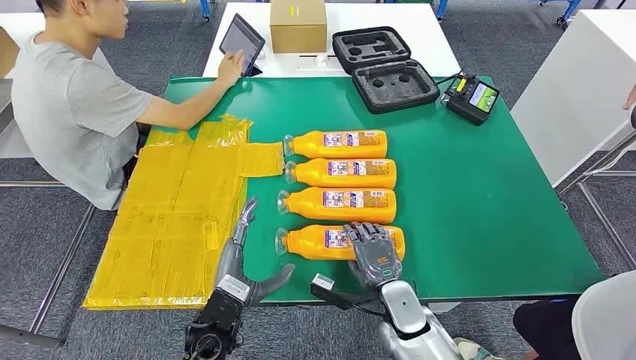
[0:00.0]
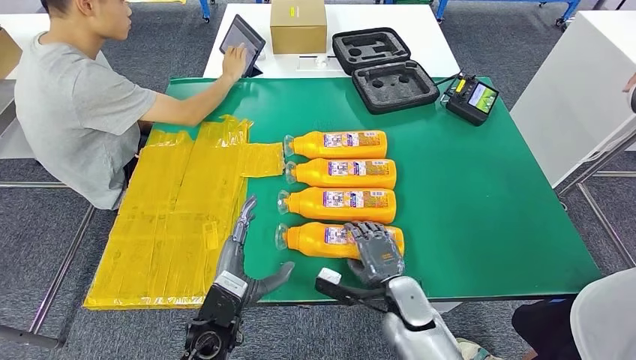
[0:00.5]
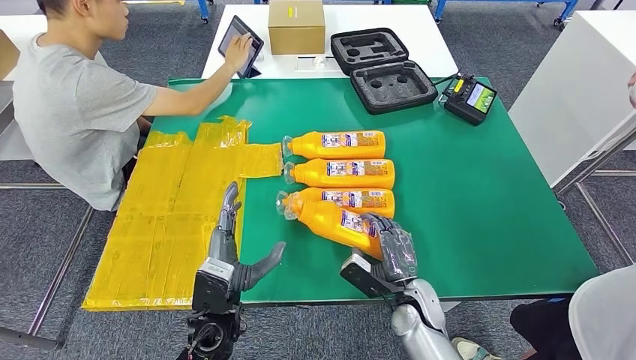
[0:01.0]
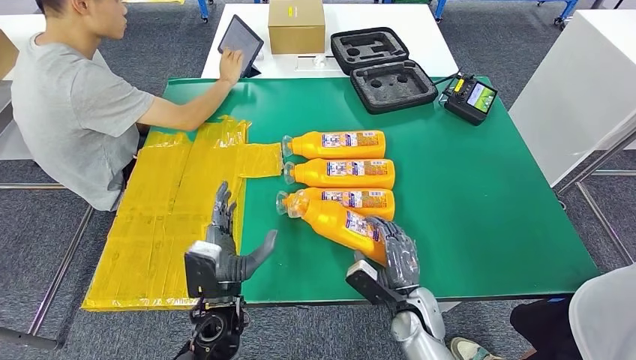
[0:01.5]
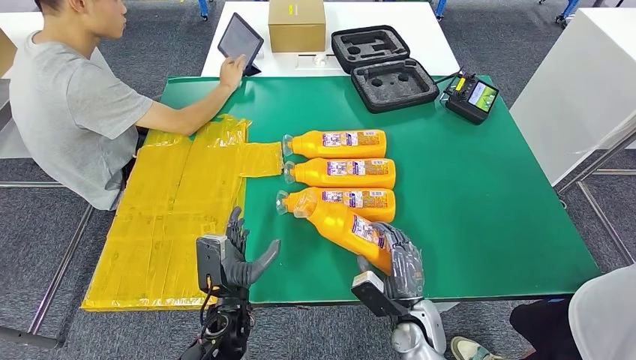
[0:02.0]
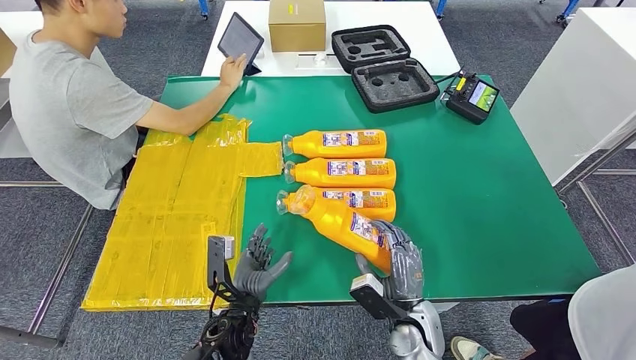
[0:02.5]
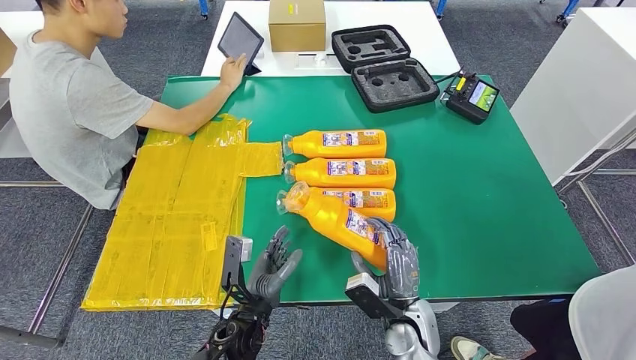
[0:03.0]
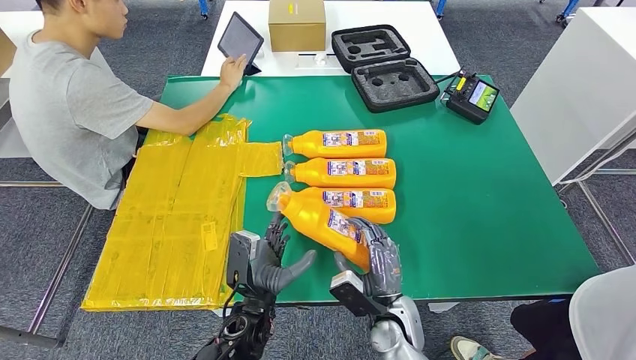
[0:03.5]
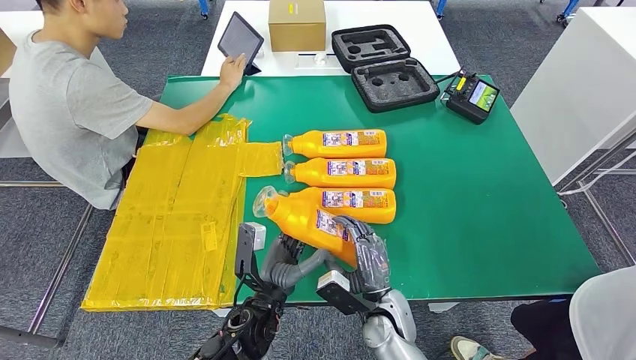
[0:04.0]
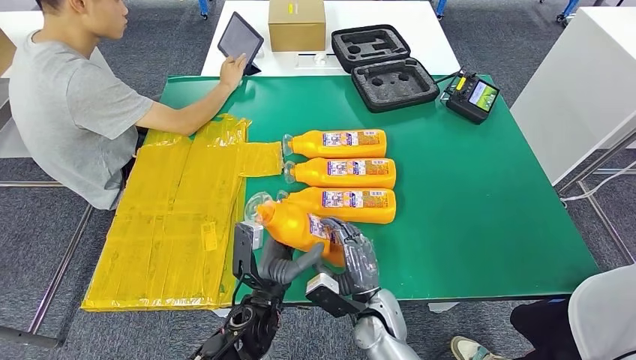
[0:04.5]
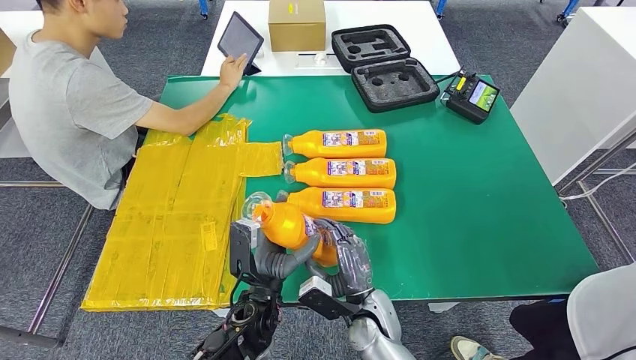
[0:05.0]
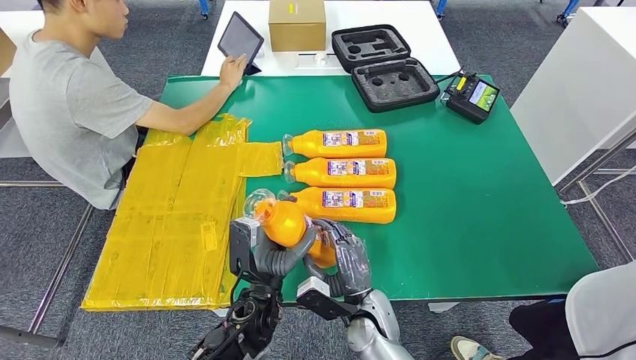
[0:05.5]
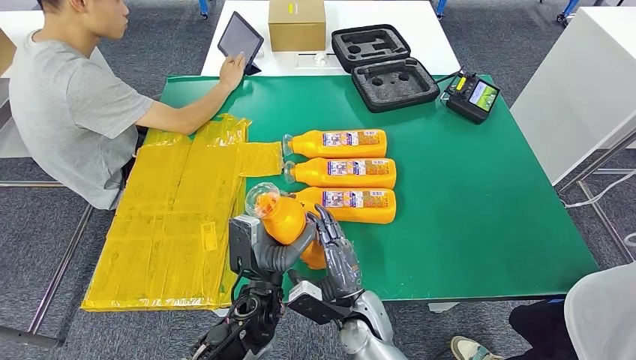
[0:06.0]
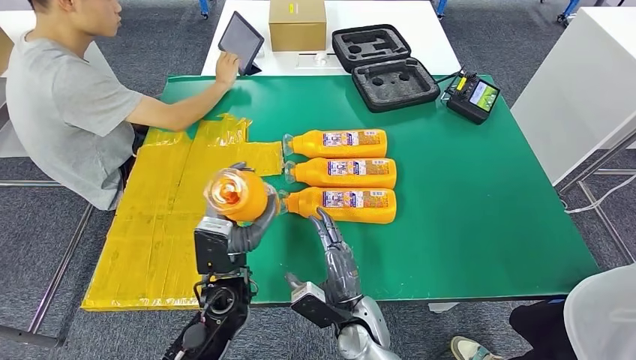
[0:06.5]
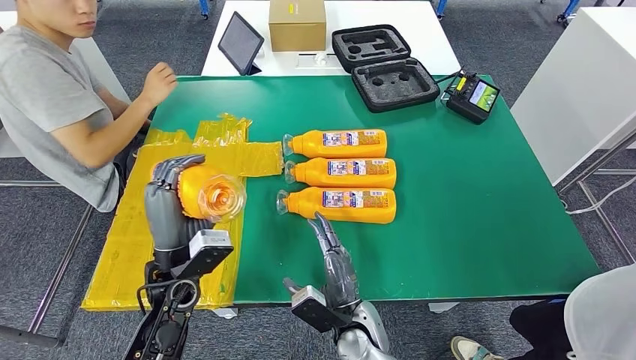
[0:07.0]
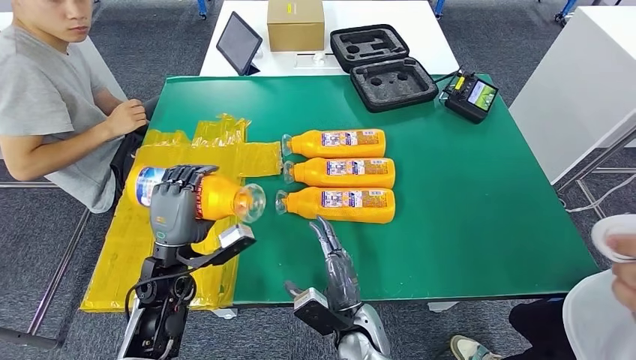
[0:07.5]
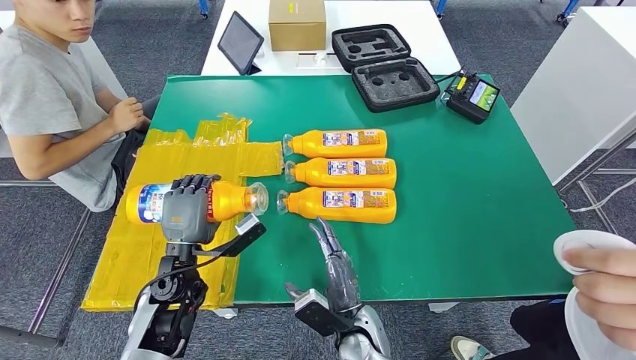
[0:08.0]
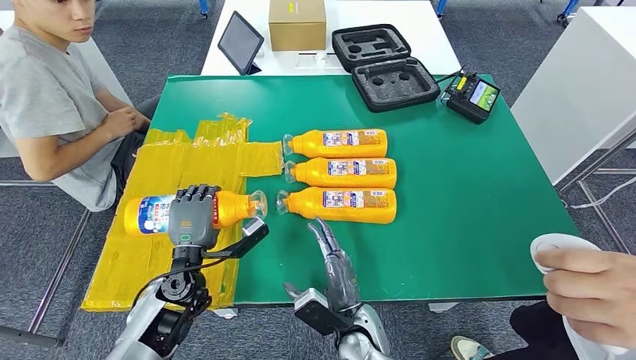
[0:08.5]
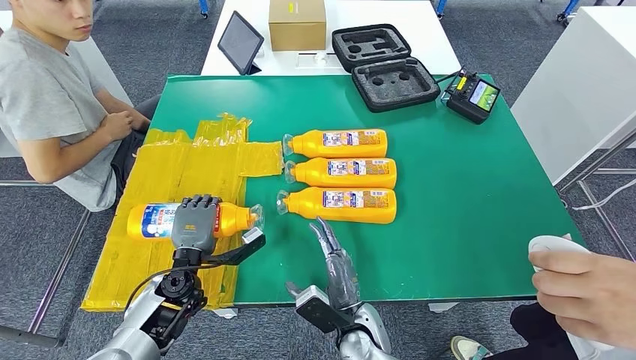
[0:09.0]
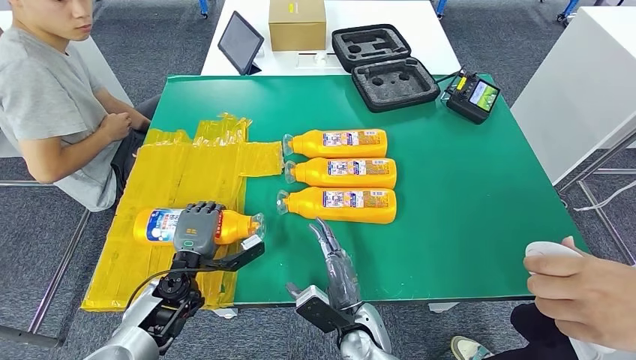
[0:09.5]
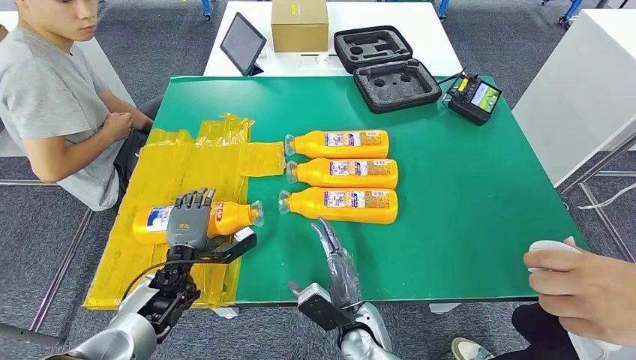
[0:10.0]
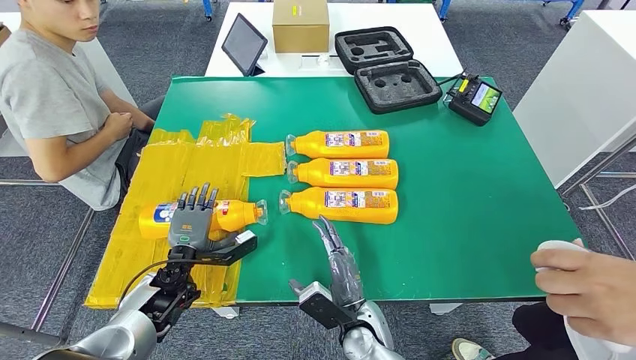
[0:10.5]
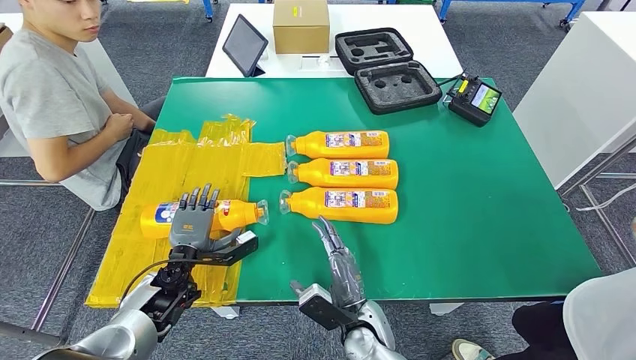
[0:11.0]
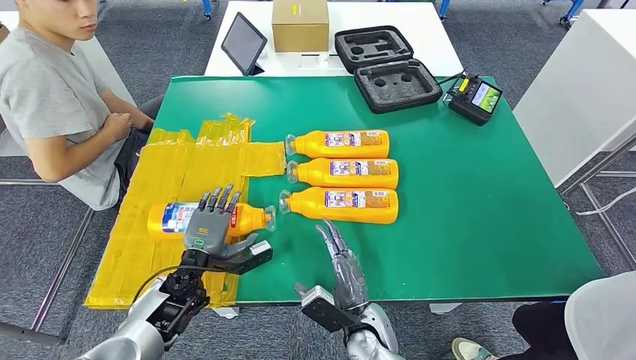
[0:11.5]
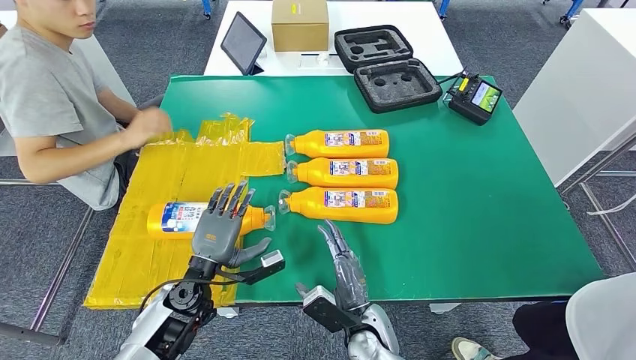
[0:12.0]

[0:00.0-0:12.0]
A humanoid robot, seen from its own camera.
Step, 0:00.0 to 0:04.5: Take the bottle from the table.
Step, 0:05.0 to 0:11.5: Flip the bottle to face forward.
0:02.0 to 0:04.0: The left hand goes approximately 5 cm to the right. Meanwhile the right hand is displaced to the left by roughly 5 cm.
0:04.0 to 0:06.0: The hands move only a little.
0:10.0 to 0:12.0: The left hand changes place by some 5 cm.

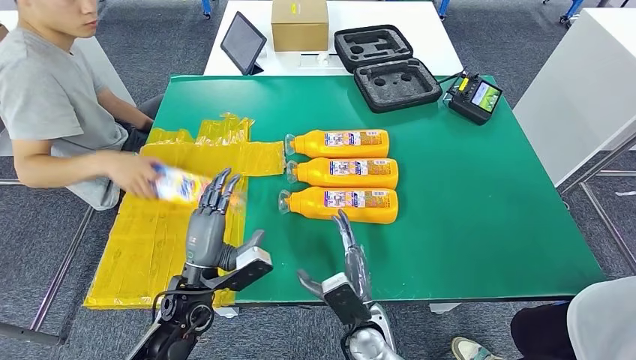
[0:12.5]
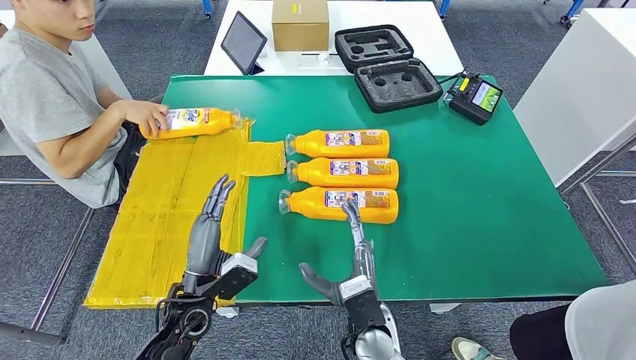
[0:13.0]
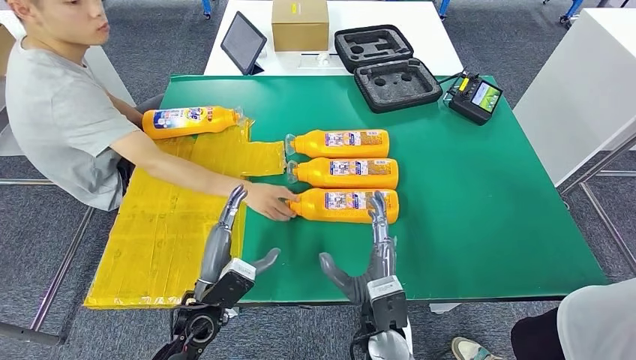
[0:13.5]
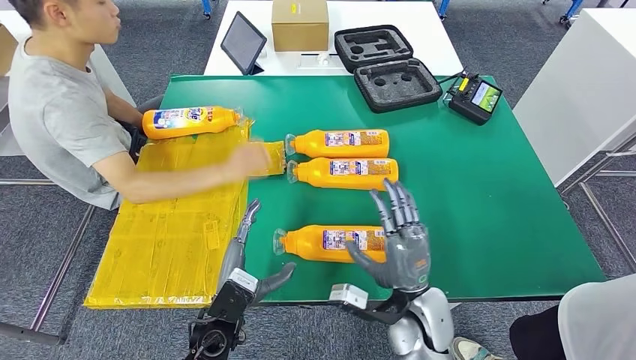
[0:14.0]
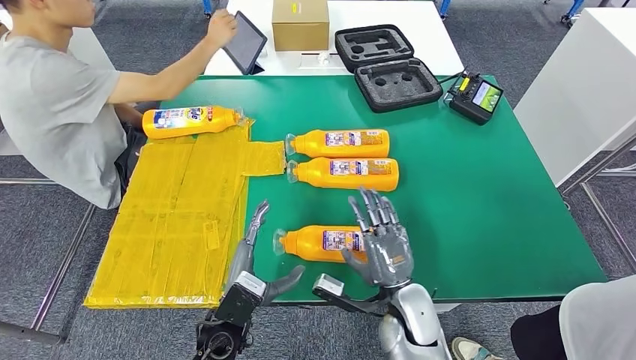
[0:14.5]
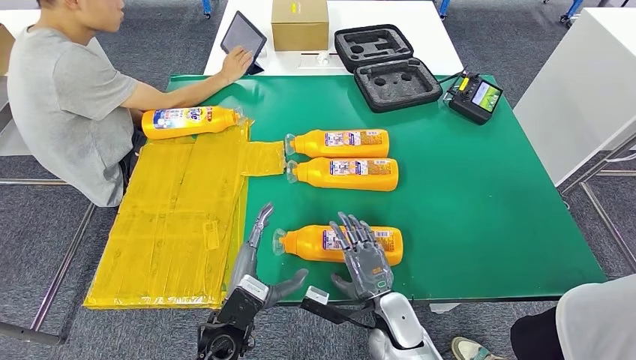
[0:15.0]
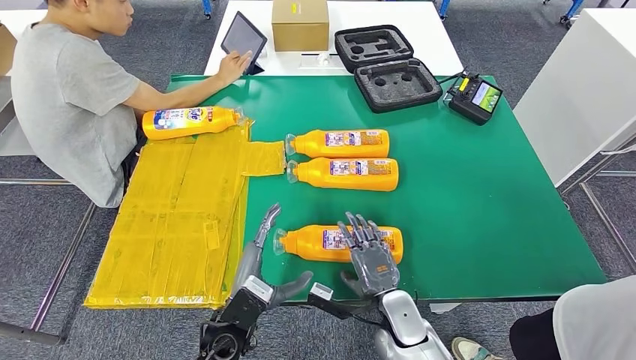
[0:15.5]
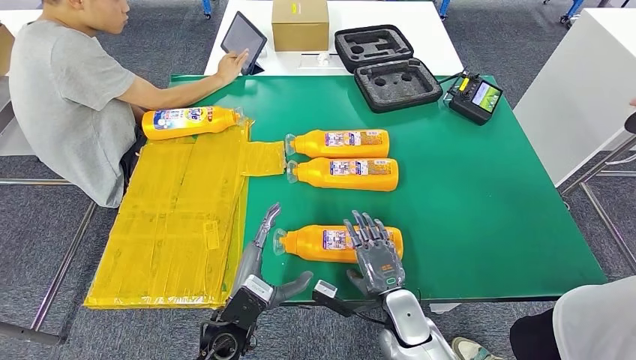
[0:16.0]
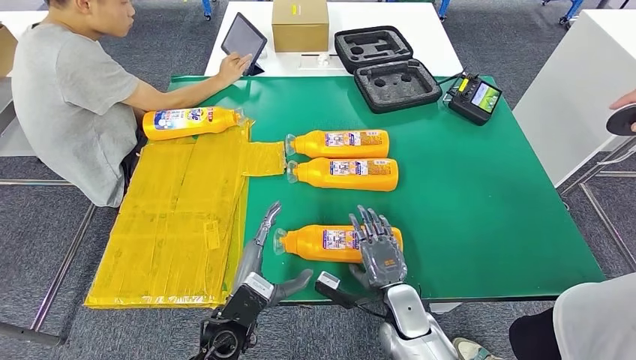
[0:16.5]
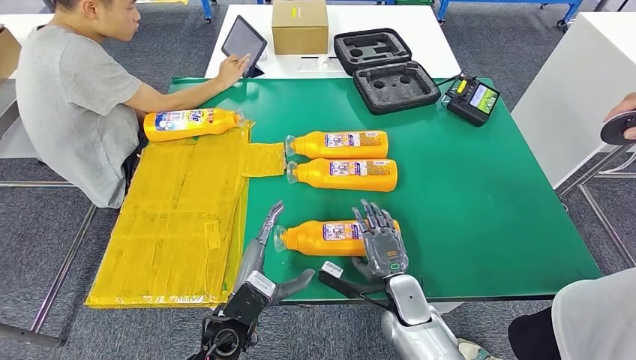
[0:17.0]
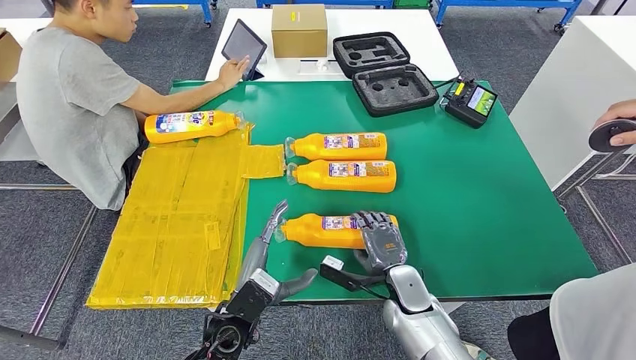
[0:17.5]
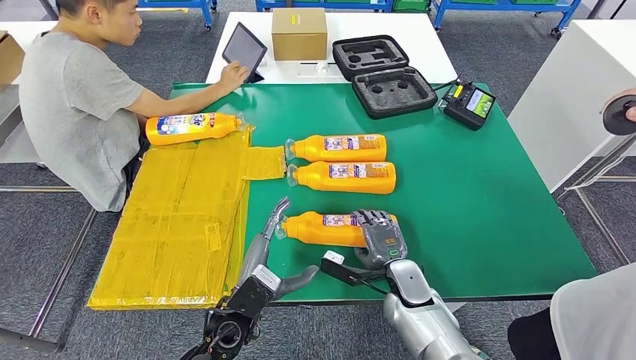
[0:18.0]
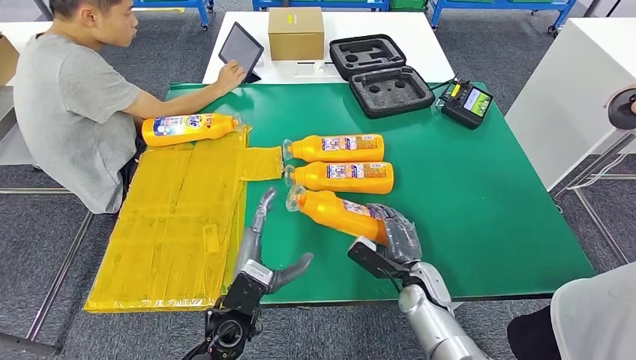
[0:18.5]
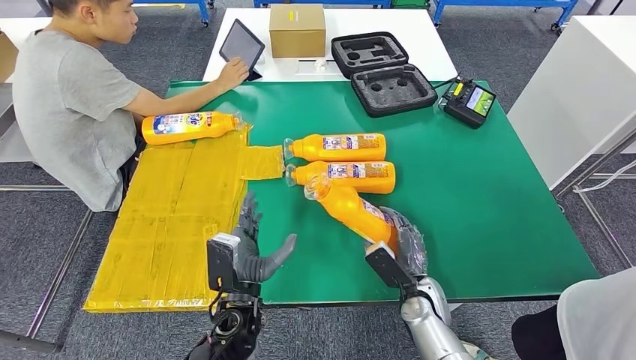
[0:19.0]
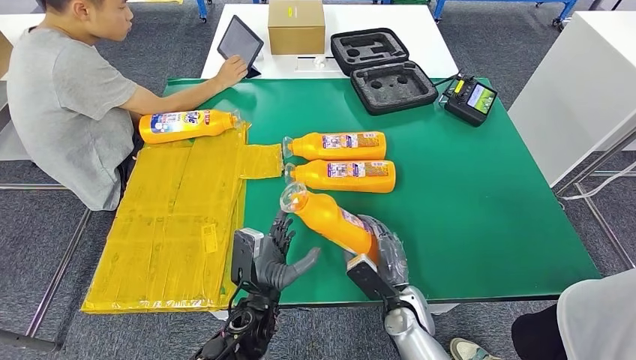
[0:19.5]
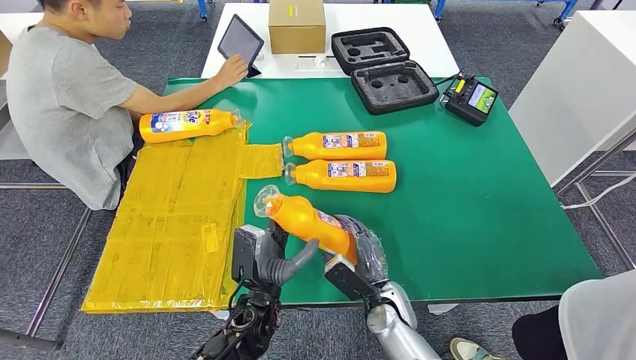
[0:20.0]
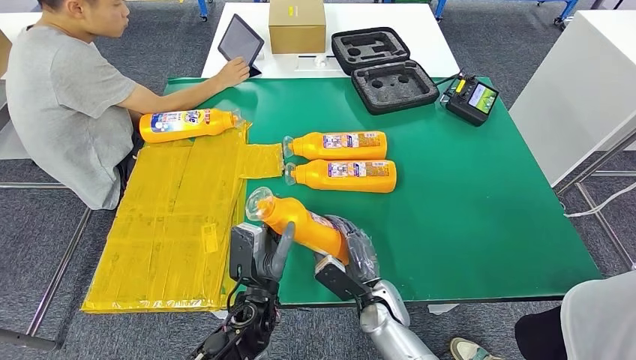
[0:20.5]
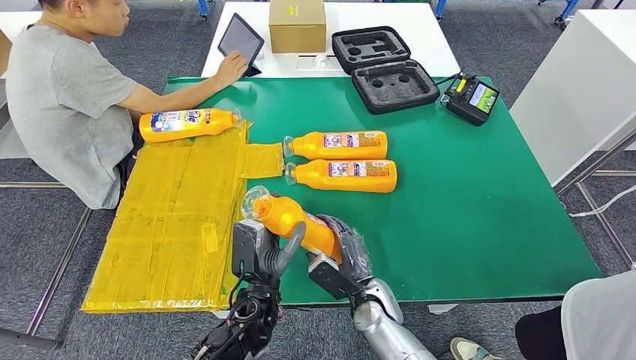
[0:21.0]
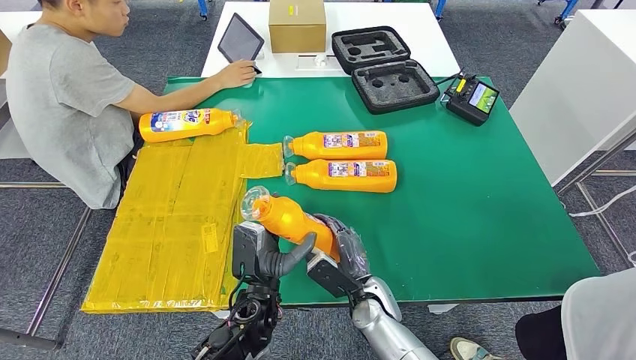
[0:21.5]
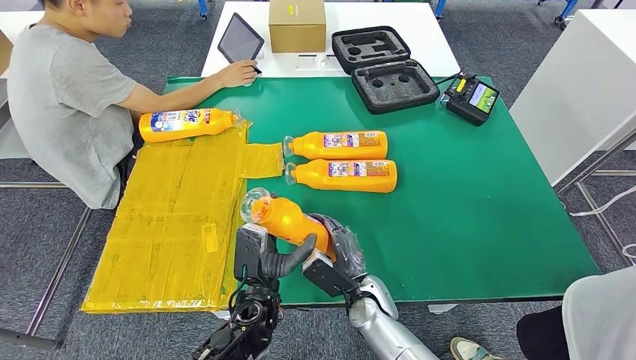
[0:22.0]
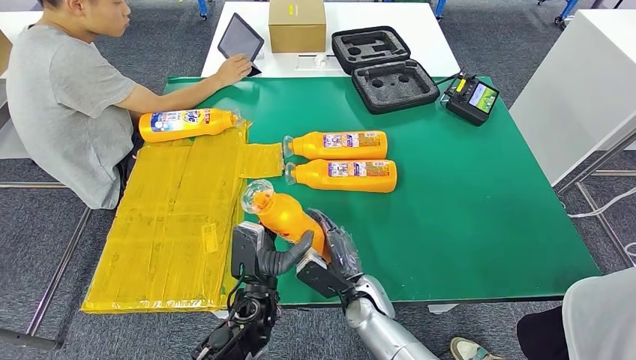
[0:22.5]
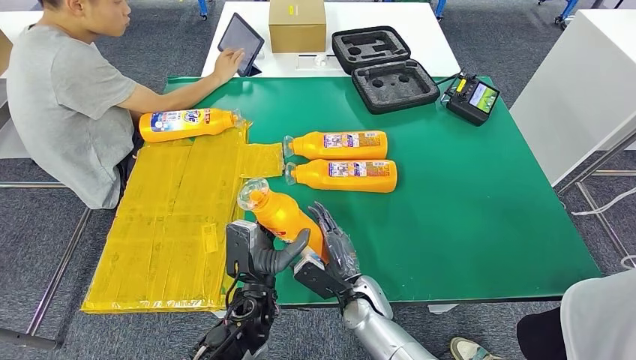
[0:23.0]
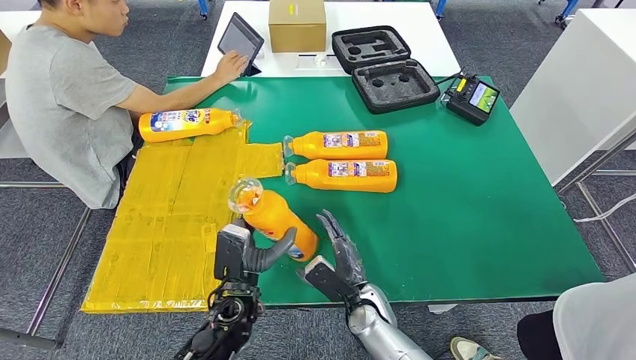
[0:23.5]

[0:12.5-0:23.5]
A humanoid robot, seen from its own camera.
Step, 0:16.0 to 0:21.0: Pick up the bottle from the table.
0:14.5 to 0:16.0: There are only small adjustments of the hands.
0:20.0 to 0:21.5: There are only small adjustments of the hands.
0:21.5 to 0:23.5: There are only small adjustments of the hands.
